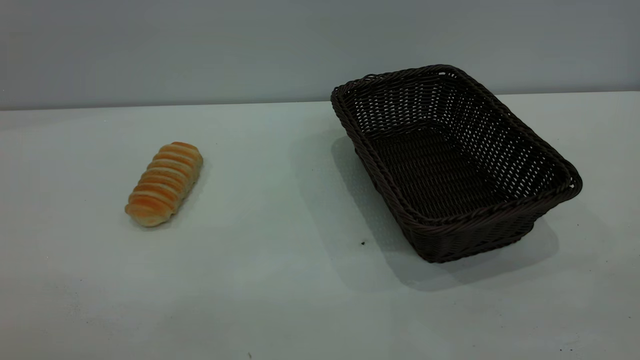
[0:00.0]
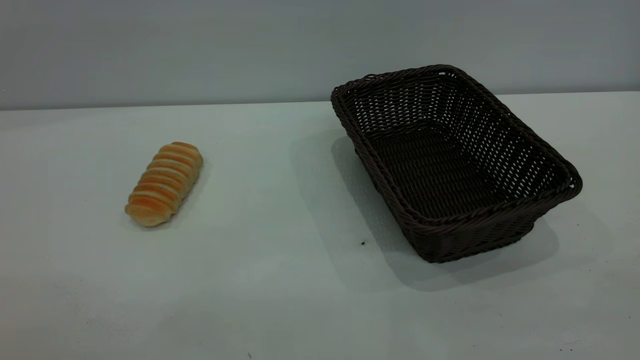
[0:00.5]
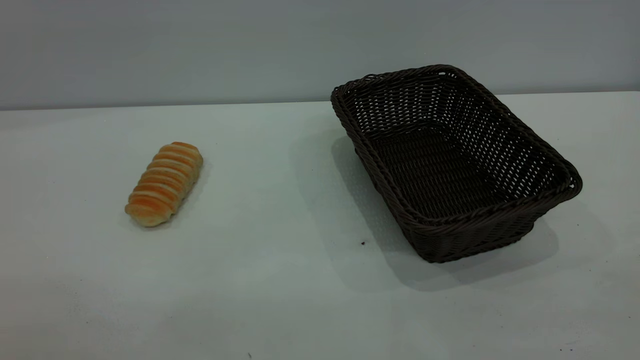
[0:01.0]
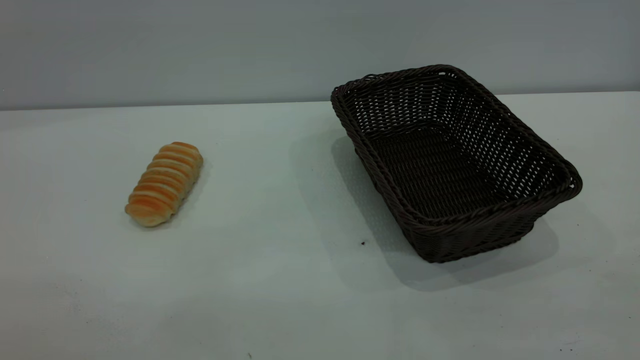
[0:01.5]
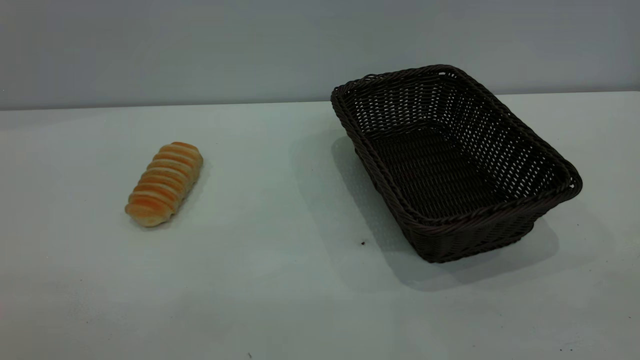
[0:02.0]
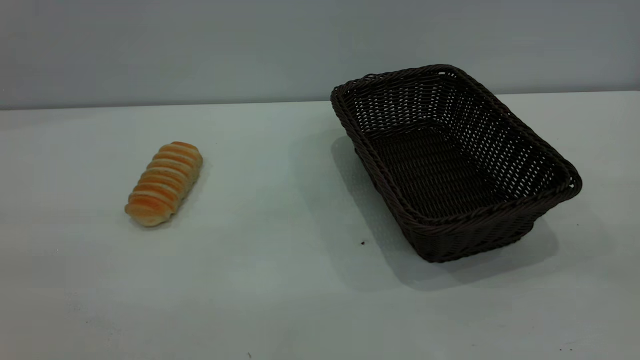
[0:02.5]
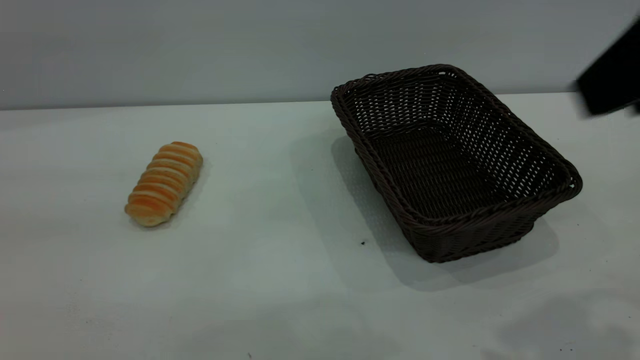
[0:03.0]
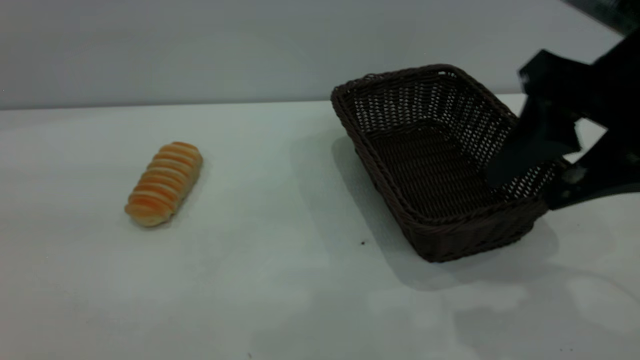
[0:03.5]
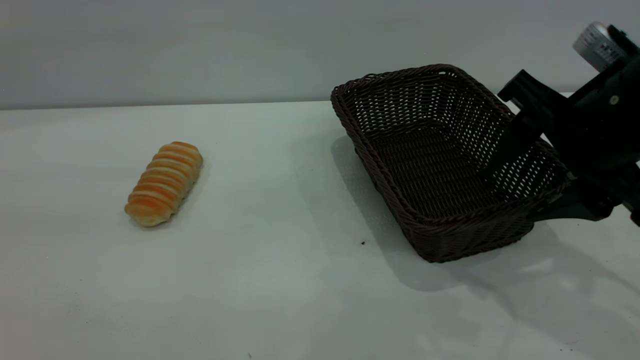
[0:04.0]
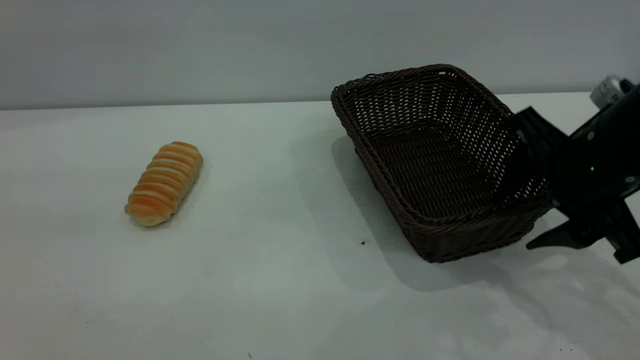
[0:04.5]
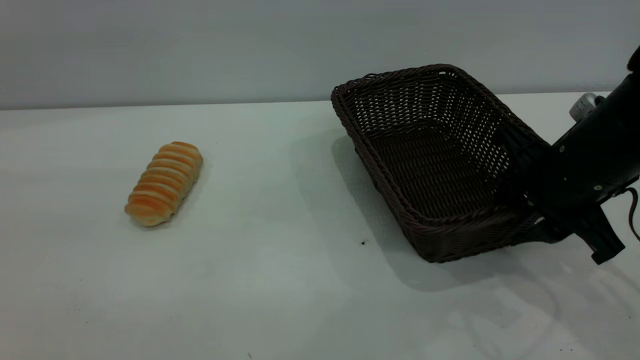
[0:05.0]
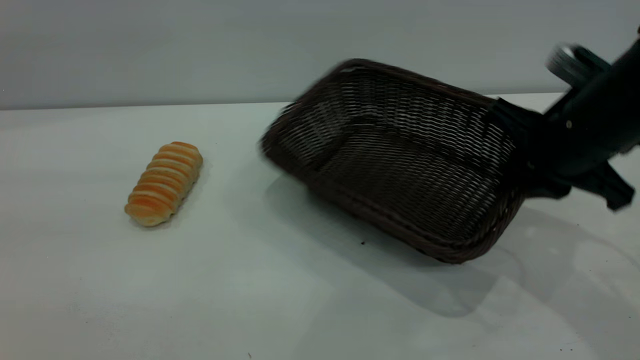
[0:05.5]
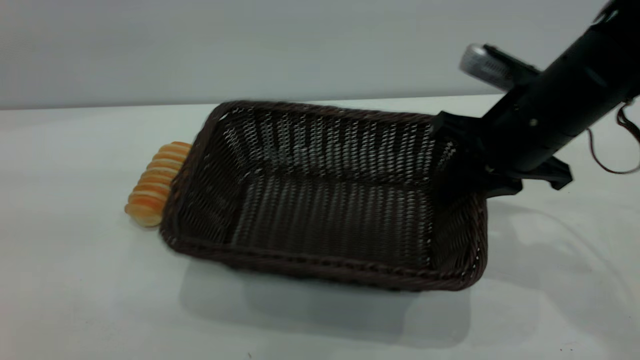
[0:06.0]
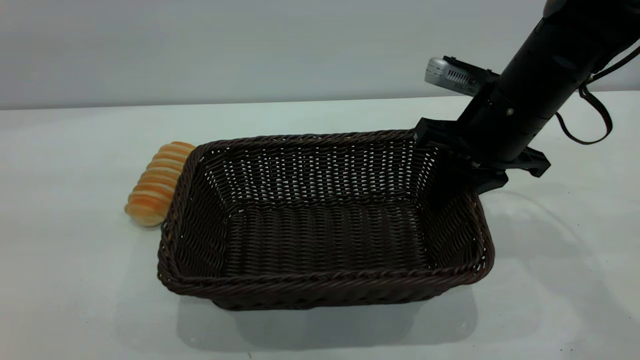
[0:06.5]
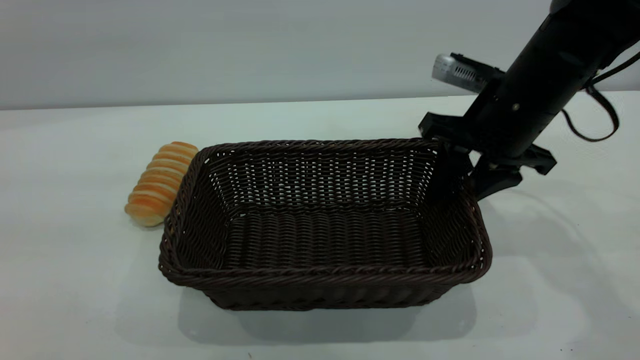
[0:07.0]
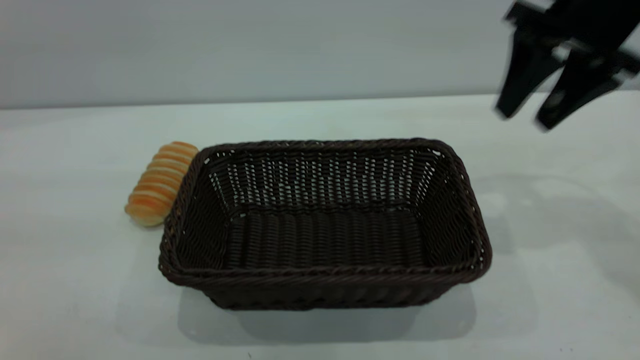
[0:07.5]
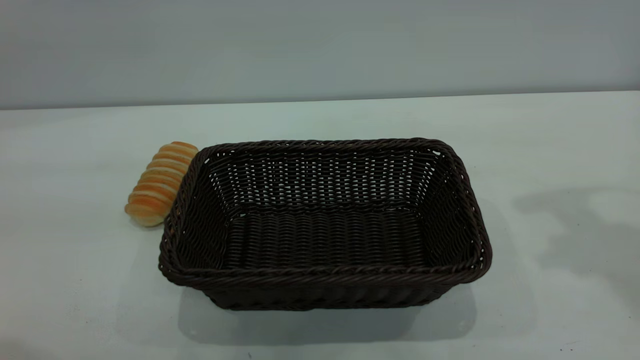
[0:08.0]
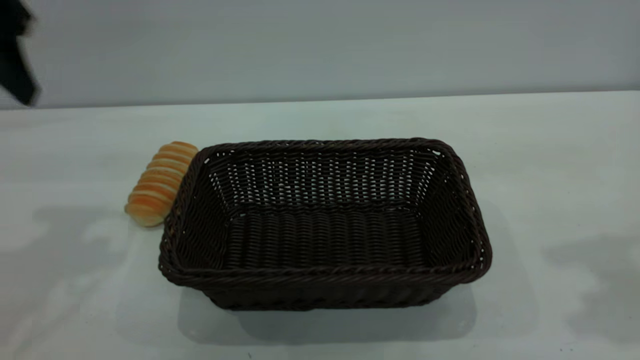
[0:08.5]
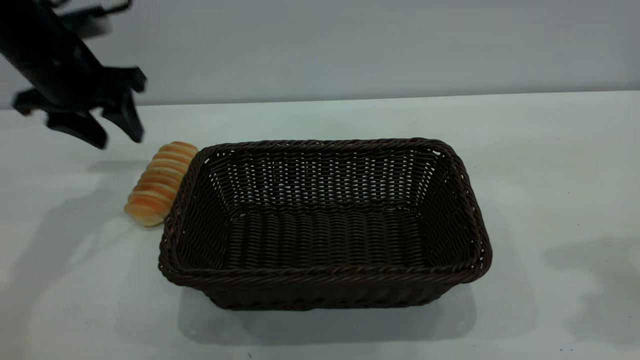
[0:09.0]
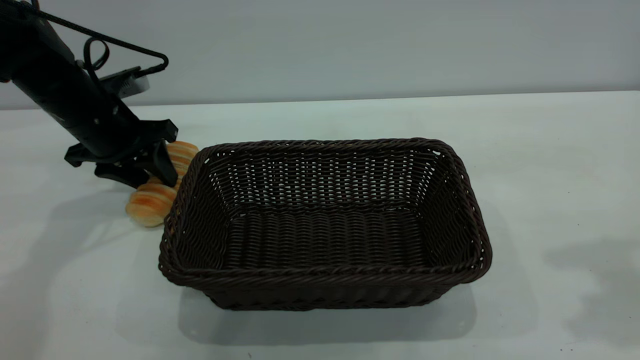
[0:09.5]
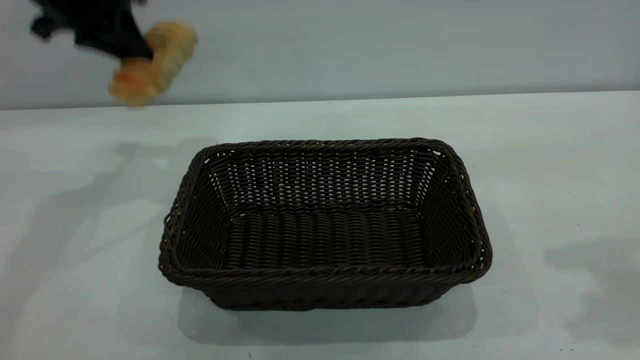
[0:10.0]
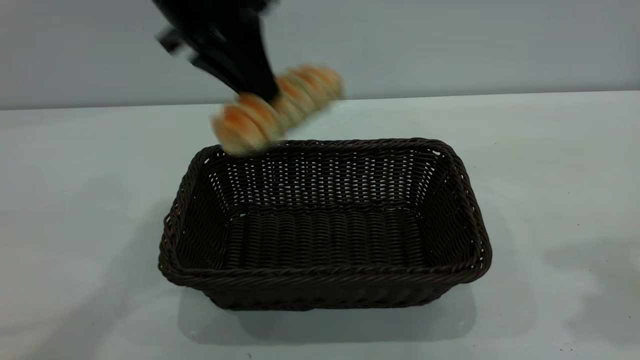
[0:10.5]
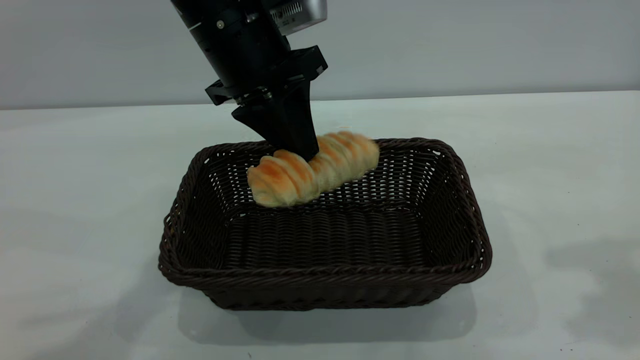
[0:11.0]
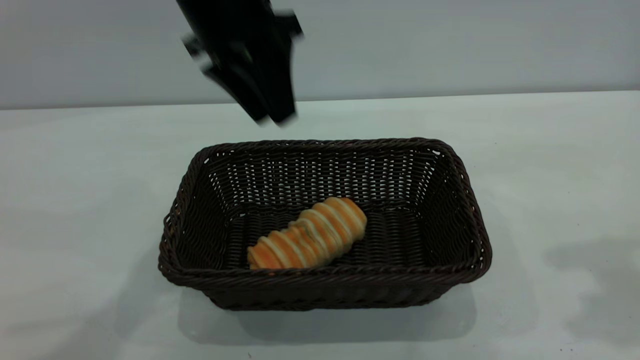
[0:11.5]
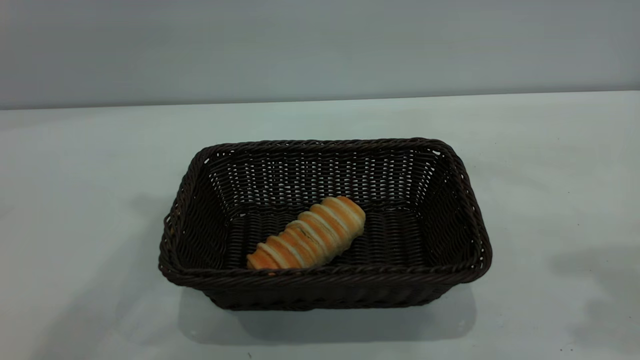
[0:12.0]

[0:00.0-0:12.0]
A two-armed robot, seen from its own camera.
Task of the whole recording: One hand grasps the black basket and places it in the middle of the table, while the other hand picks up the long bread and puts it into the black basket.
Step, 0:00.0 to 0:07.0: Move the basket to the center of view.
Step, 0:10.0 to 0:11.5: place the bread into the basket.
0:00.0 to 0:02.0: Both grippers stay put.
0:02.0 to 0:04.0: The right gripper heads forward and downward, covering about 30 cm.
0:04.0 to 0:06.0: The right gripper travels forward by roughly 5 cm, and closes.
0:06.0 to 0:08.0: The left gripper goes approximately 5 cm forward; the right gripper travels upward and to the right by roughly 20 cm, and opens.
0:08.0 to 0:10.0: The left gripper moves forward, about 30 cm, and closes up.
0:10.0 to 0:12.0: The left gripper goes roughly 20 cm upward, to the right and backward, and opens up.
